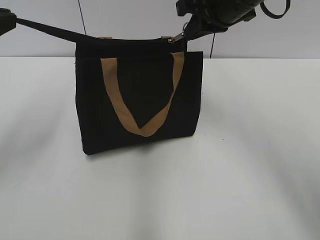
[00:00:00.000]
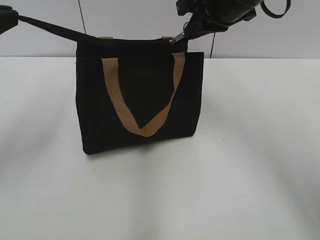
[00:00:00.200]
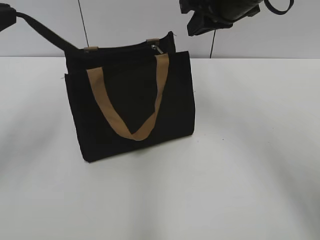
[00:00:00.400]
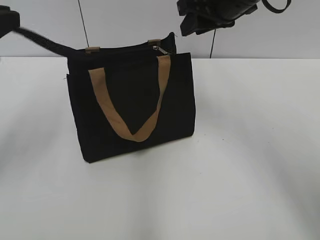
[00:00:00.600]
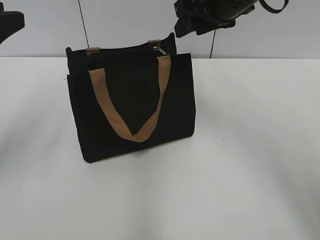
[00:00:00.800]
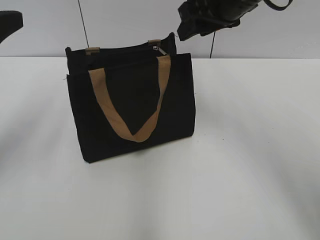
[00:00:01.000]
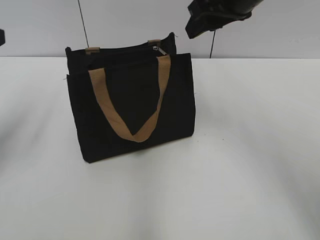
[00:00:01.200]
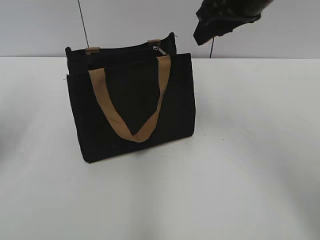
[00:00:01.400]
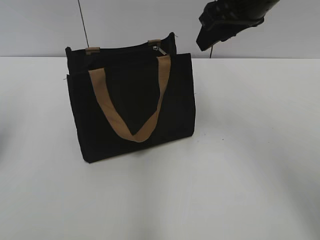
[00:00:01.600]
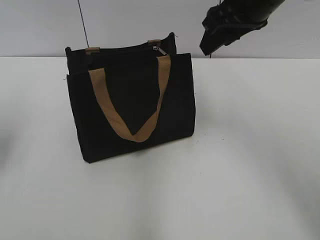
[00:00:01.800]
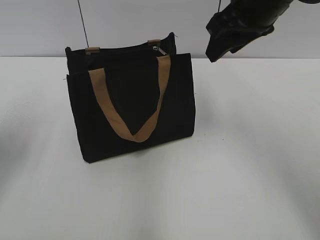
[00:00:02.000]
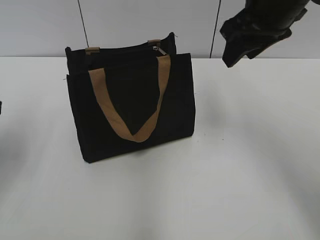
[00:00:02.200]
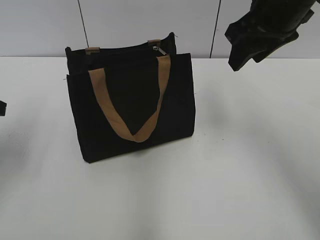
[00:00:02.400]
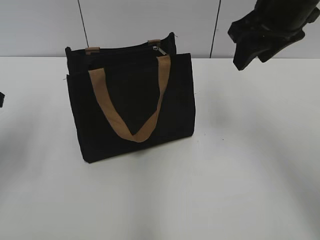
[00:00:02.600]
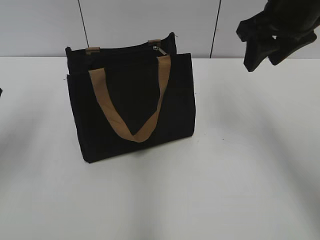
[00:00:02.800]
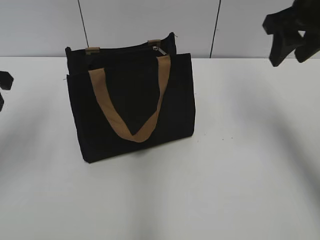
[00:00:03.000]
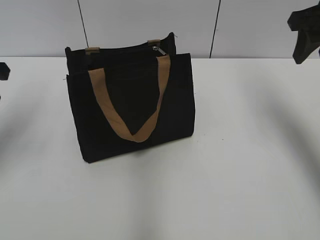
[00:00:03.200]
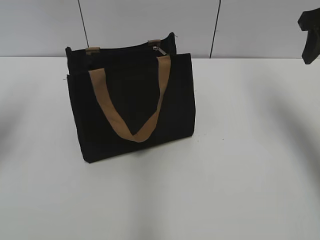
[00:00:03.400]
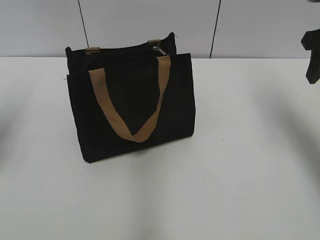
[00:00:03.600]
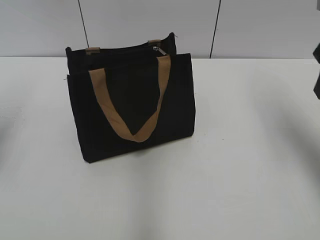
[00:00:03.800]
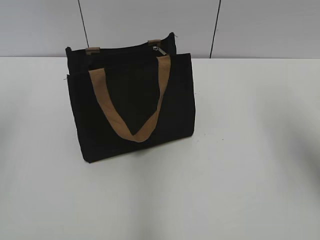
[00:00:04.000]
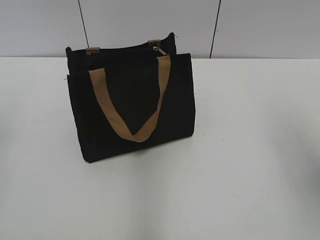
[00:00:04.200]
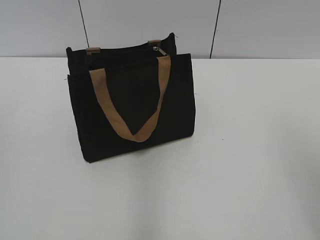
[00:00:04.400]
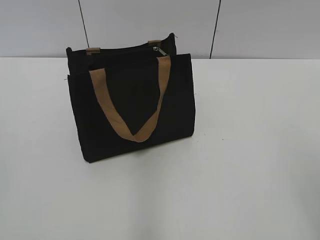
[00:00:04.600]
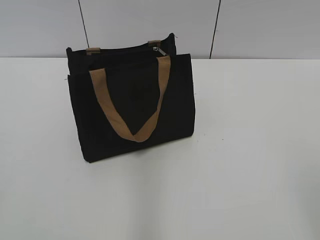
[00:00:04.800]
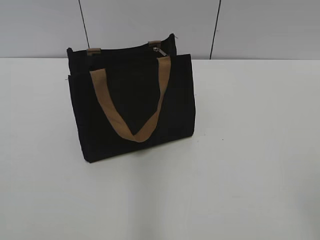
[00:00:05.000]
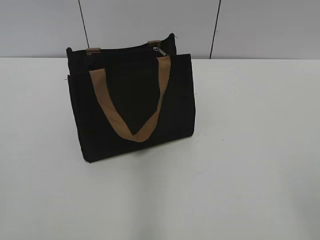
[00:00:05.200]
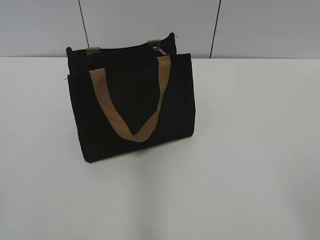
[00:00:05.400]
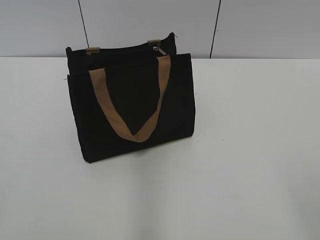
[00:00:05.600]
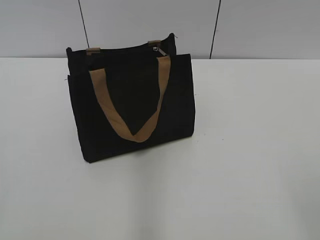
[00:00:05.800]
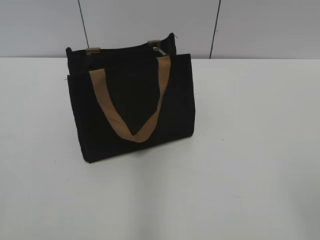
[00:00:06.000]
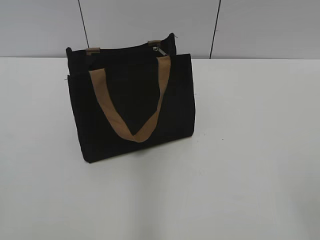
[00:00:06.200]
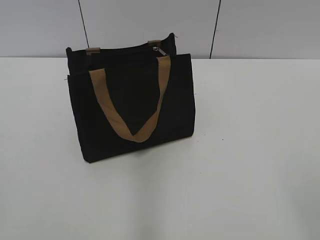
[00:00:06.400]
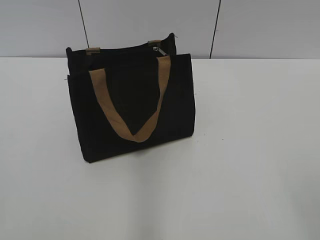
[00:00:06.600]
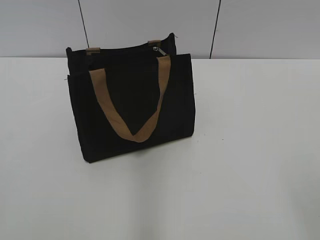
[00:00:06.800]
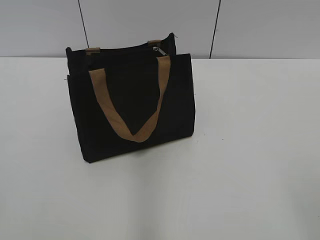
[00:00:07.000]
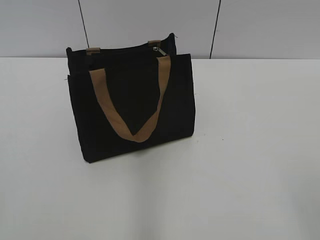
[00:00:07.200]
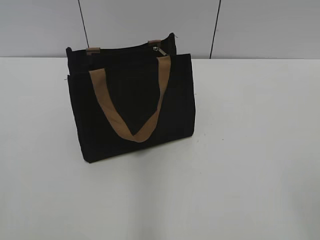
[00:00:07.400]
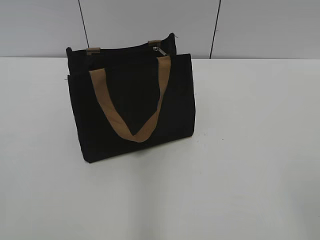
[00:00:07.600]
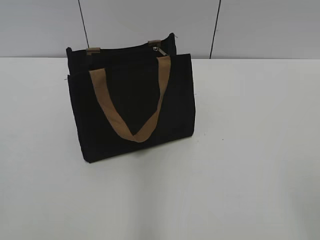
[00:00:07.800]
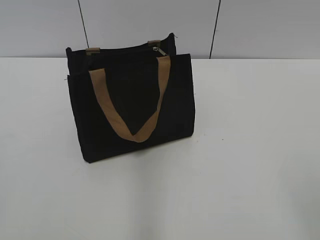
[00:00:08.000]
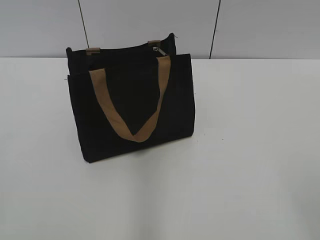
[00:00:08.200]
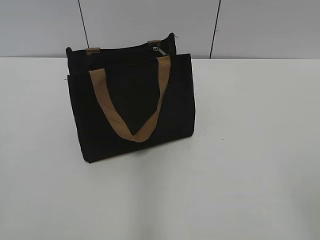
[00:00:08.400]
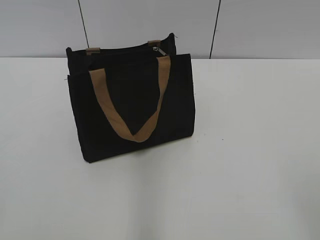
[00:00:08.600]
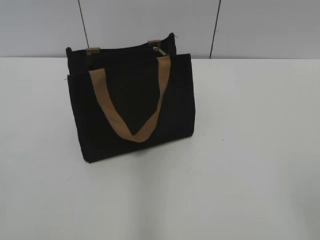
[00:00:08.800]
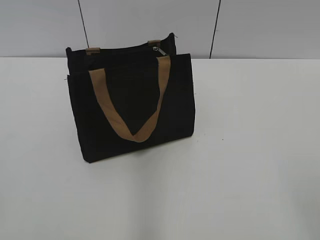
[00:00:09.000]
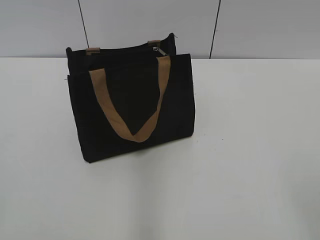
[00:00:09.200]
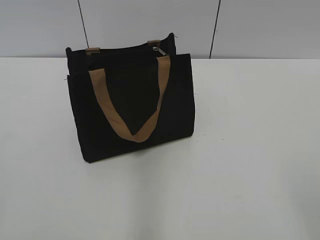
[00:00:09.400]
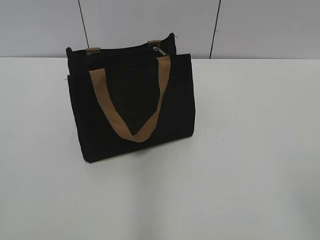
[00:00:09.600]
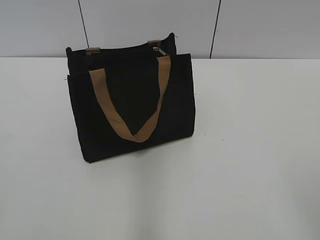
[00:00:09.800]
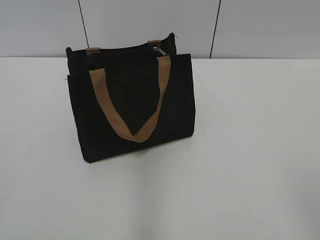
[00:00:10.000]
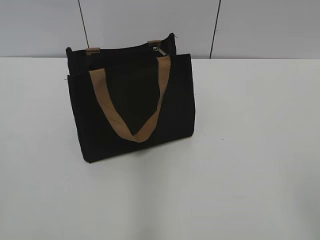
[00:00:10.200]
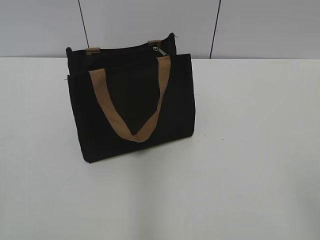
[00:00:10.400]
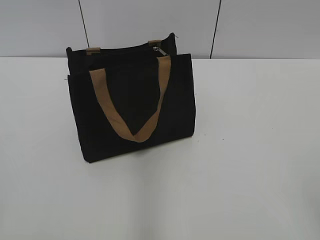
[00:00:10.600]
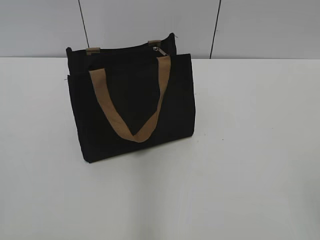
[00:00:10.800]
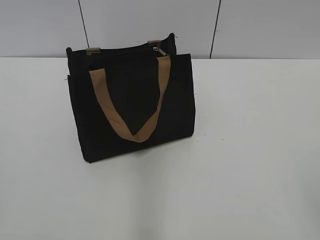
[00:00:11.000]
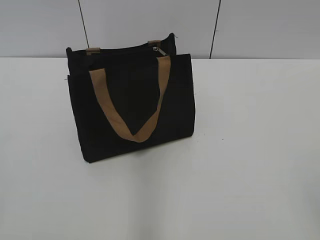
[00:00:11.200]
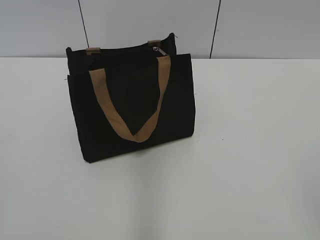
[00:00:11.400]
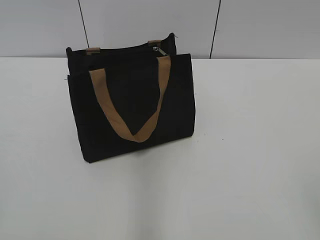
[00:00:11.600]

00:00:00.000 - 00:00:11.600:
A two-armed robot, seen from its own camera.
Step, 00:00:00.600 - 00:00:00.800: Grab the zipper with your left hand.
00:00:00.000 - 00:00:01.400: The left gripper opens its fingers. Meanwhile the right gripper opens its fingers.
00:00:02.800 - 00:00:04.400: The left gripper travels backward and upward by some 20 cm. Meanwhile the right gripper is displaced backward and to the right by some 25 cm.
00:00:05.800 - 00:00:08.800: The two grippers keep their place.
00:00:08.800 - 00:00:10.200: Neither gripper changes place.
